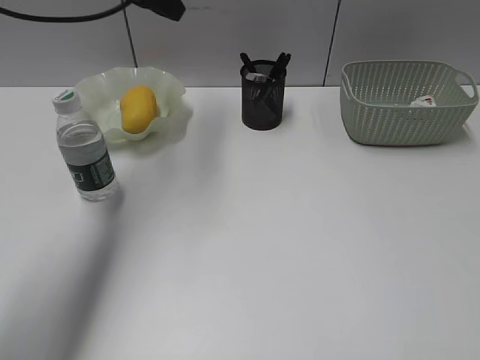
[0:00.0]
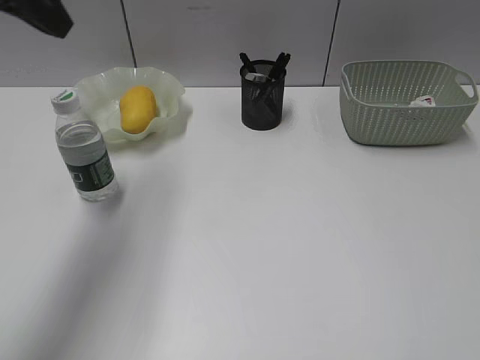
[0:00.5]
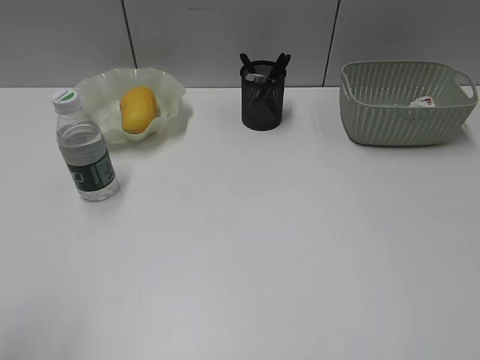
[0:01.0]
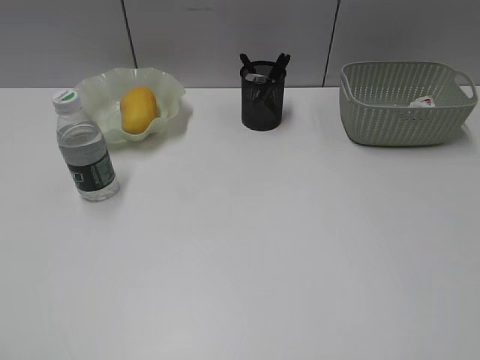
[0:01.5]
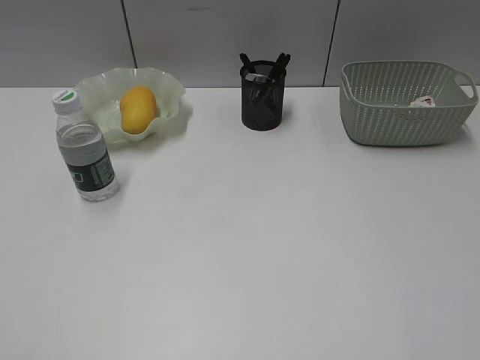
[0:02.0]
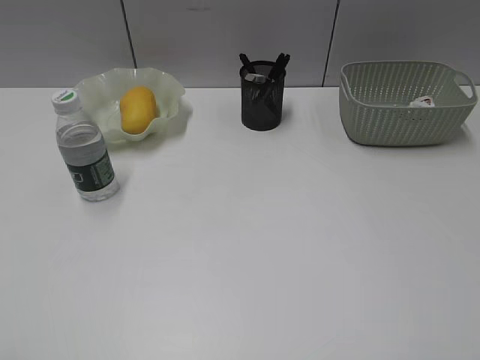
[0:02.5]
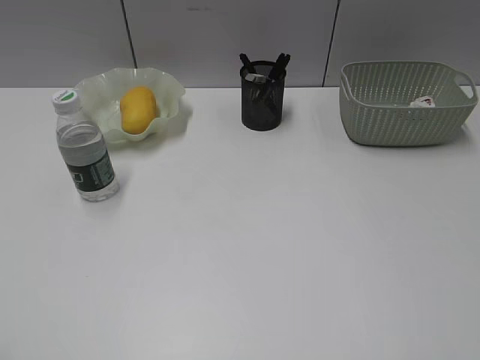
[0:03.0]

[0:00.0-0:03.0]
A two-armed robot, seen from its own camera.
0:00.0 to 0:01.5: The left gripper shifts roughly 50 cm backward.
